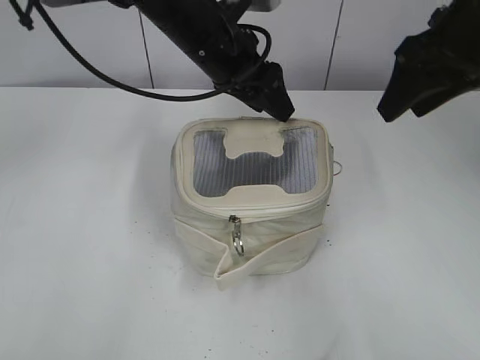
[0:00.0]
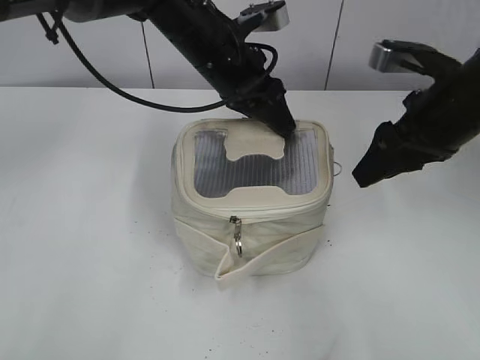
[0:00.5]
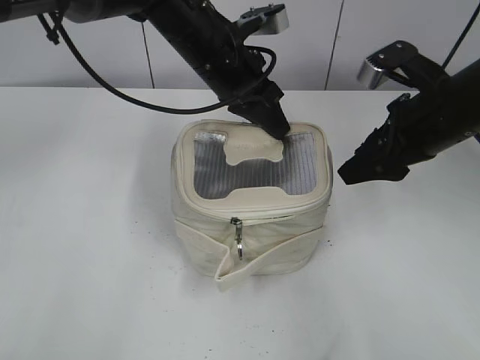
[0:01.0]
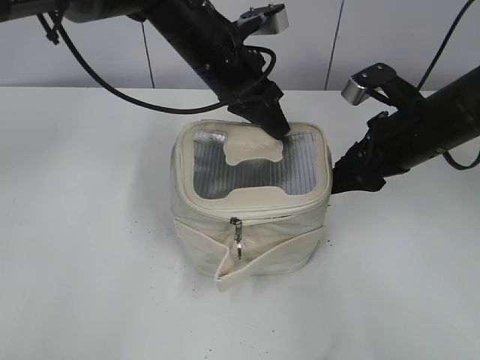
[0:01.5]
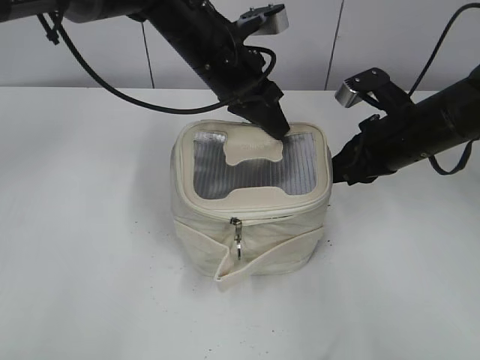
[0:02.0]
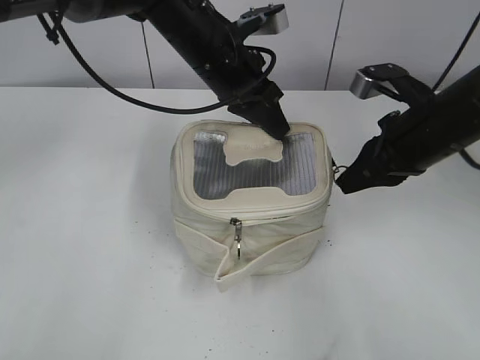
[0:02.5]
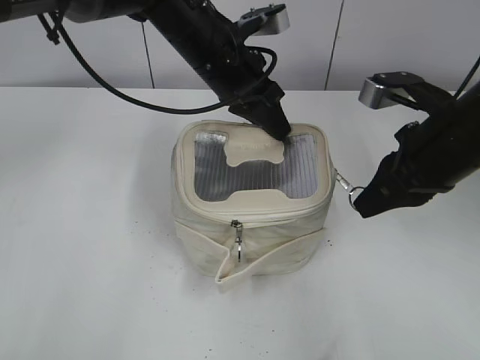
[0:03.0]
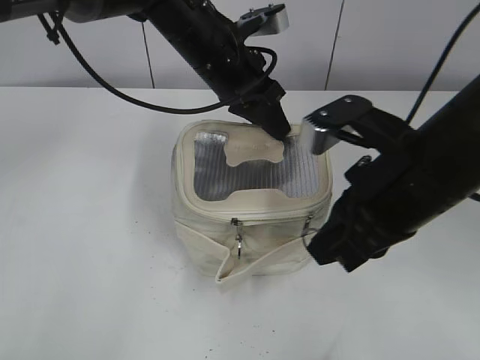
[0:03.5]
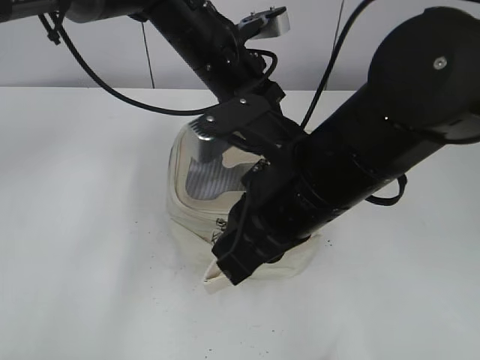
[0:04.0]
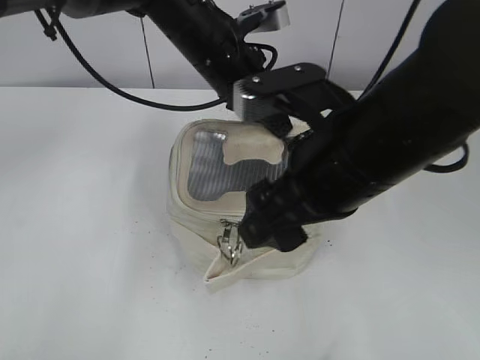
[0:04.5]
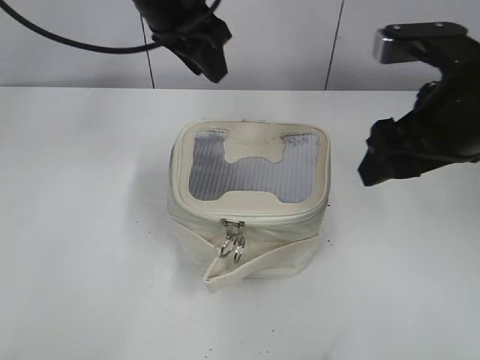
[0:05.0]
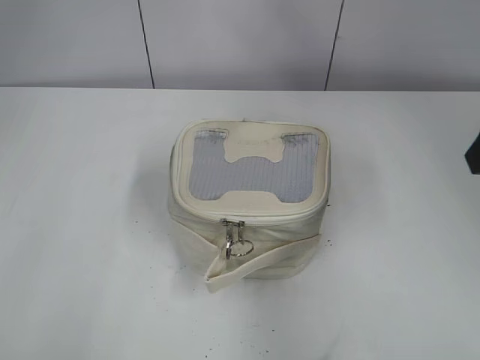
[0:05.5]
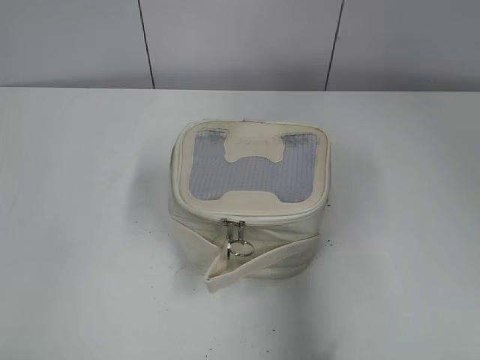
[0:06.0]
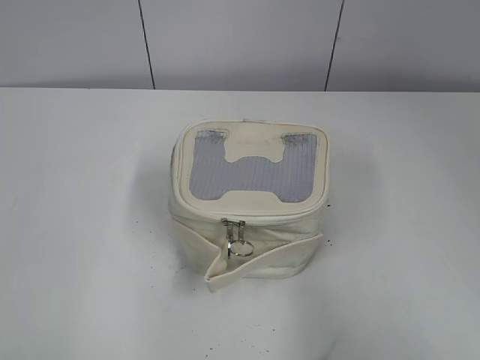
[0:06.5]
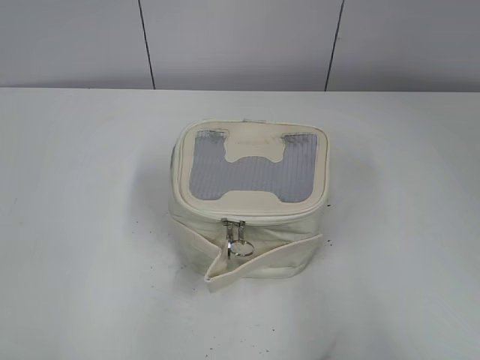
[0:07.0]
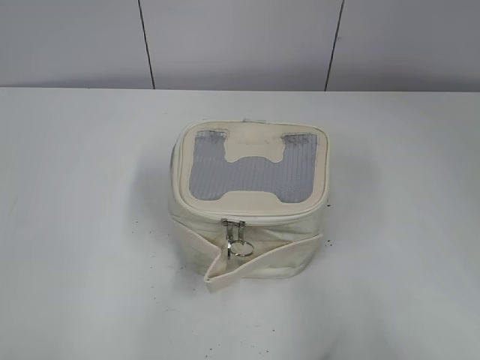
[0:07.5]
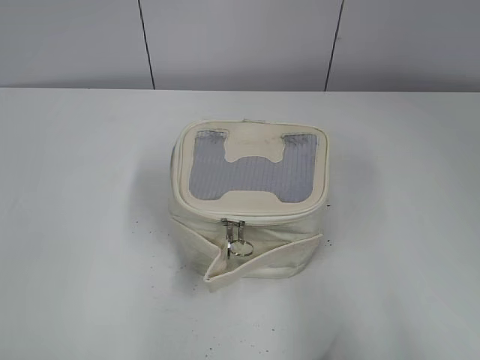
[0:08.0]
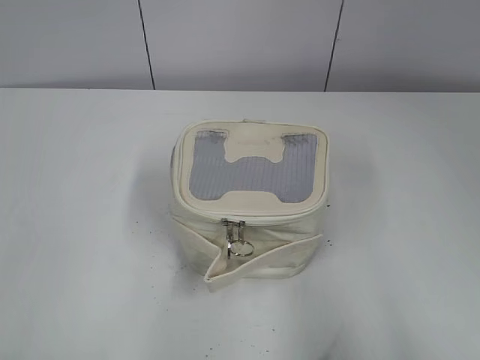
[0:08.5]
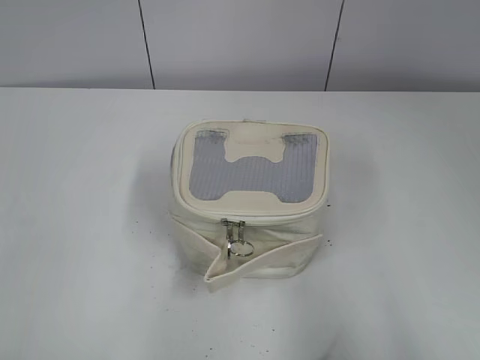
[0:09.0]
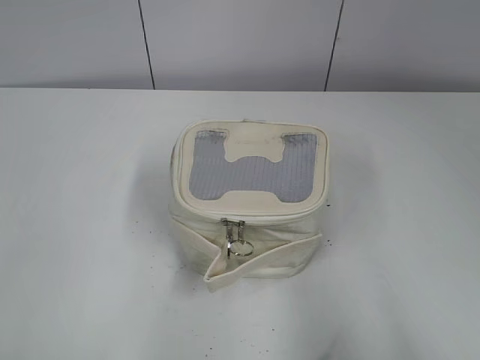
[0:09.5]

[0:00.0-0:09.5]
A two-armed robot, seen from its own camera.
Step, 0:00.0 to 0:04.0: Zip up the bag with your right hand.
0:00.0 to 0:02.0: The right gripper goes about 15 cm downward, and closes up; the left gripper closes.
0:02.0 to 0:04.0: The right gripper shifts roughly 20 cm to the left, backward and upward.
0:04.0 to 0:05.5: The left gripper is displaced upward and to the left by roughly 25 cm, and opens its fingers, while the right gripper moves to the right and upward, roughly 20 cm, and opens up.
0:05.5 to 0:07.5: Both grippers travel together backward, about 30 cm.

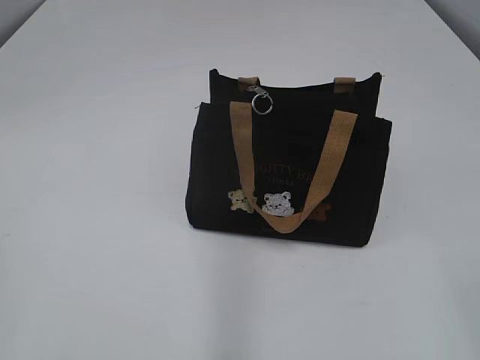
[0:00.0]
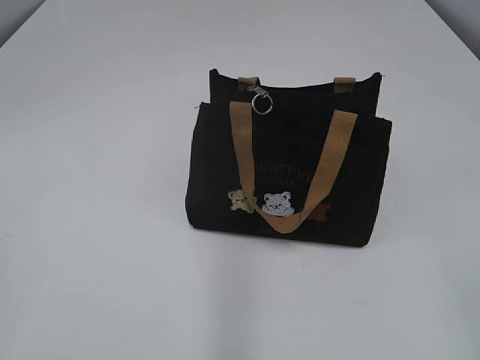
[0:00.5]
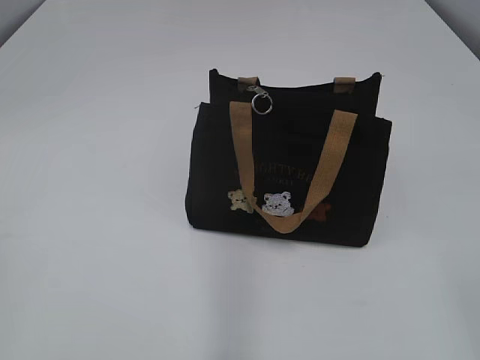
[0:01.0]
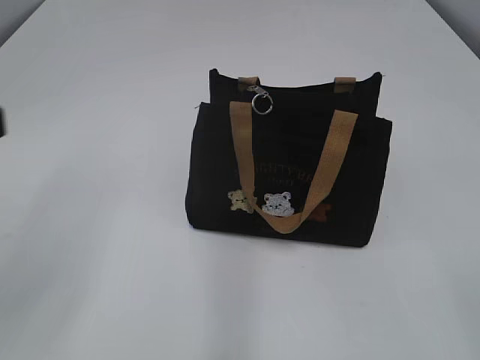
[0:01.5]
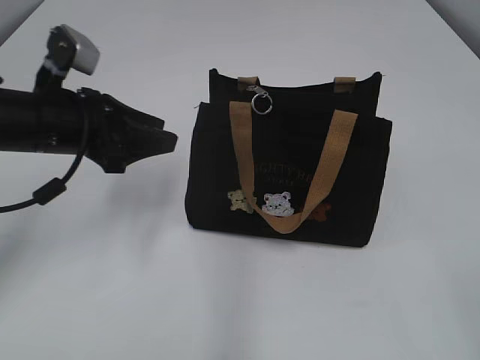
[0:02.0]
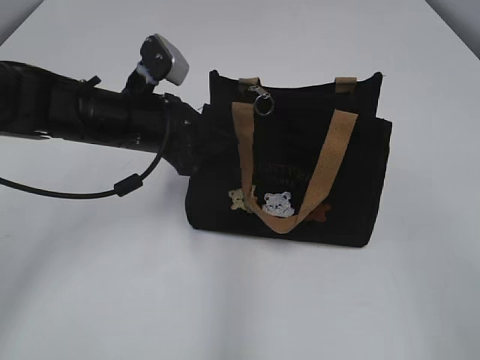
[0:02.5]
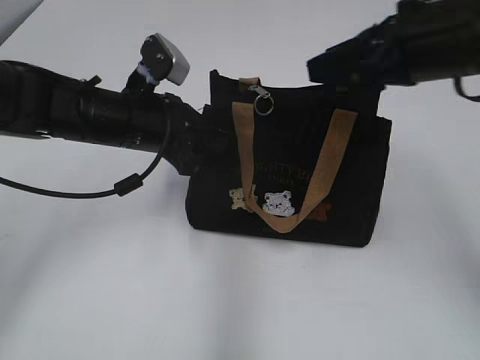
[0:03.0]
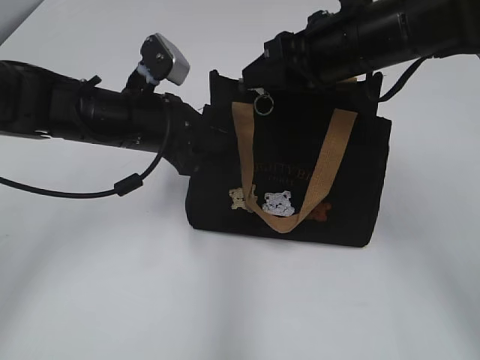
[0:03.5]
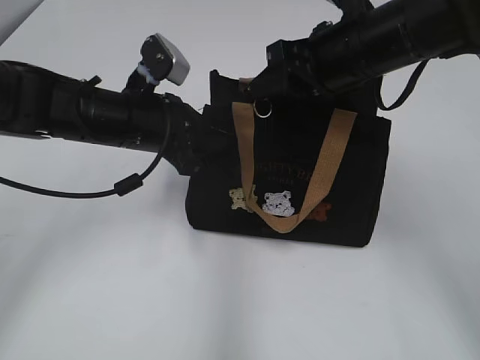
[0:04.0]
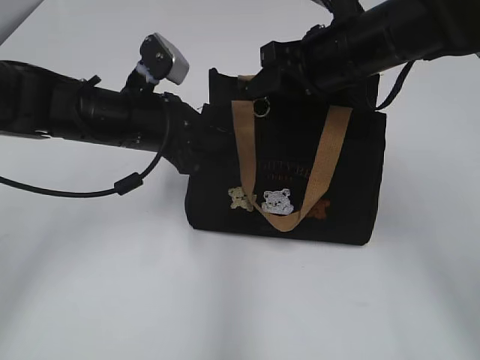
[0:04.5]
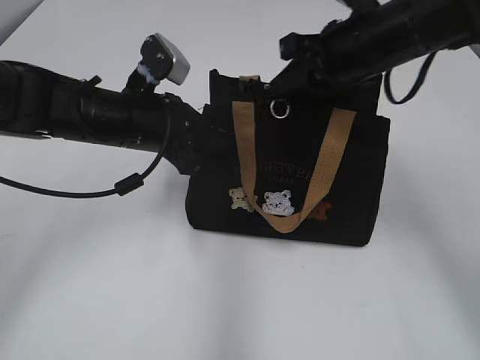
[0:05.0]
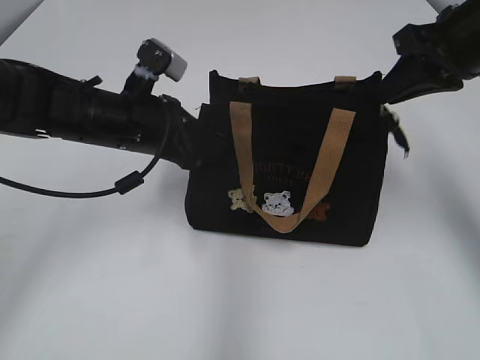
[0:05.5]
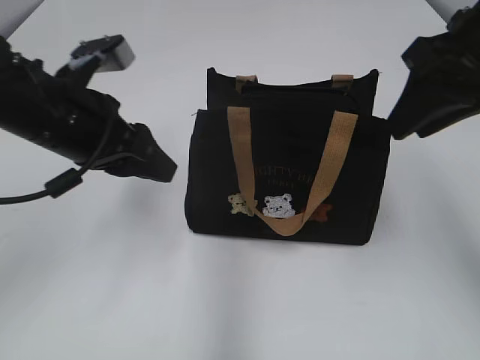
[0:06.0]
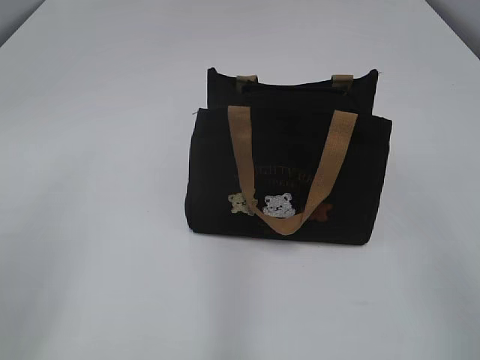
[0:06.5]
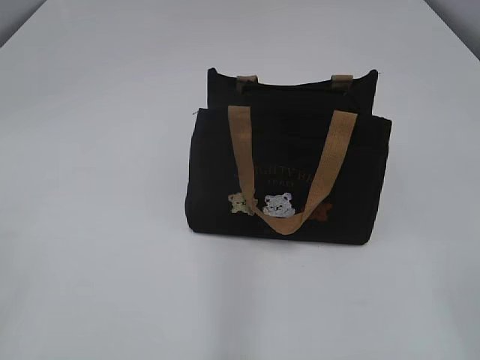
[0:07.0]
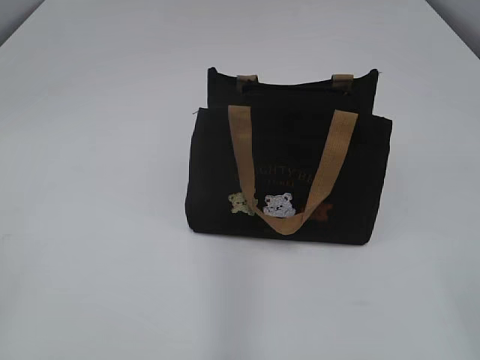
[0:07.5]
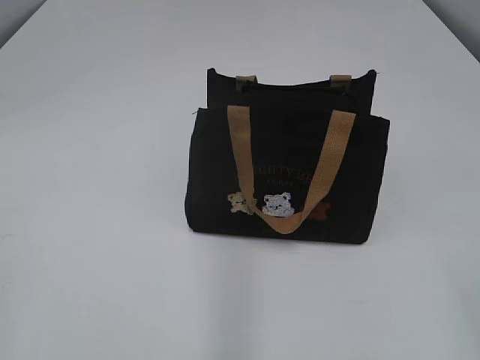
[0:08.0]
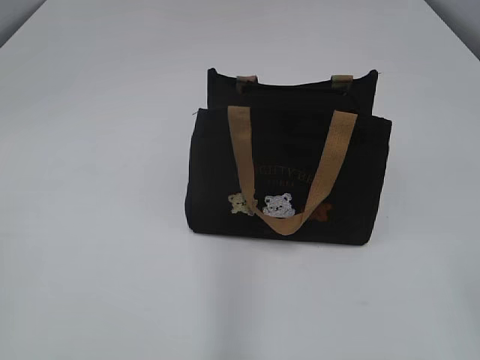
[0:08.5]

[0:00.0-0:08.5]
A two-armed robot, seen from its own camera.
Step, 0:00.0 to 0:05.5: Pull open the zipper with your right hand.
0:02.0 to 0:04.0: The right gripper goes approximately 35 cm forward. Meanwhile the left gripper travels to the right by roughly 10 cm, and closes its fingers.
0:04.0 to 0:06.5: The right gripper moves backward and to the right, approximately 25 cm, and closes, then reopens, while the left gripper heads backward, to the left and upward, covering roughly 25 cm, and opens its fingers.
0:06.5 to 0:08.5: The left gripper goes roughly 15 cm backward and to the left.
